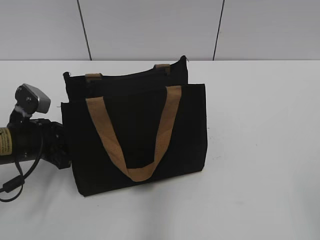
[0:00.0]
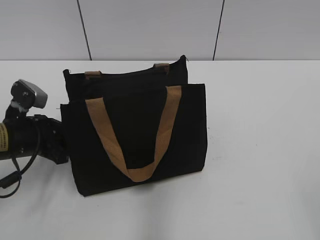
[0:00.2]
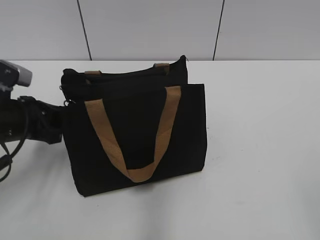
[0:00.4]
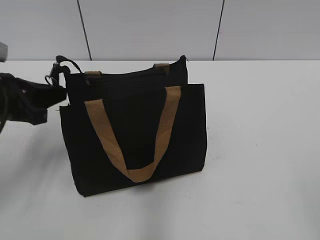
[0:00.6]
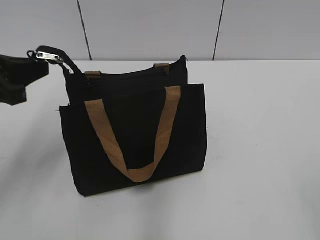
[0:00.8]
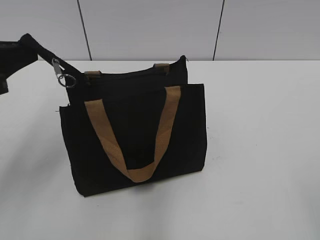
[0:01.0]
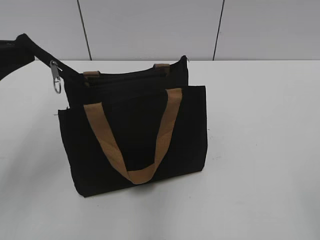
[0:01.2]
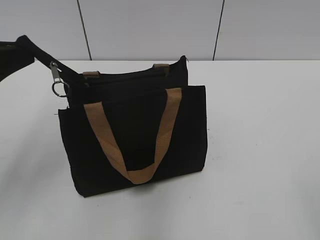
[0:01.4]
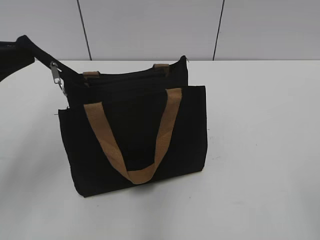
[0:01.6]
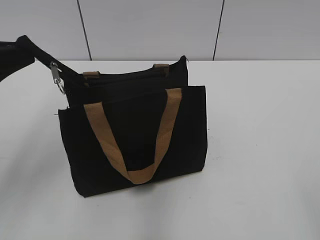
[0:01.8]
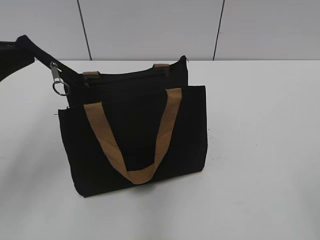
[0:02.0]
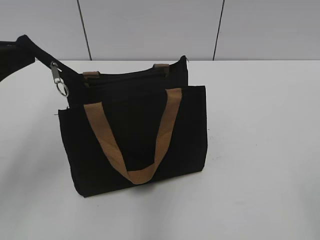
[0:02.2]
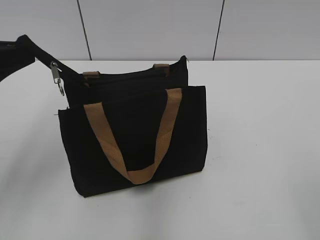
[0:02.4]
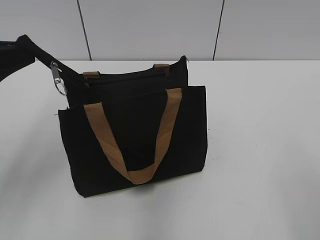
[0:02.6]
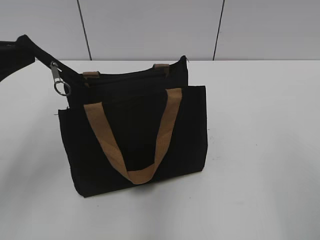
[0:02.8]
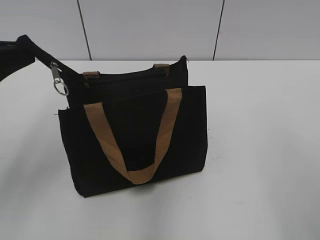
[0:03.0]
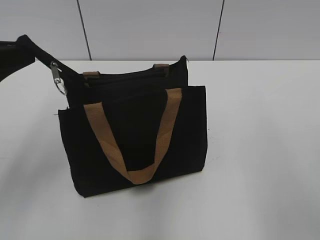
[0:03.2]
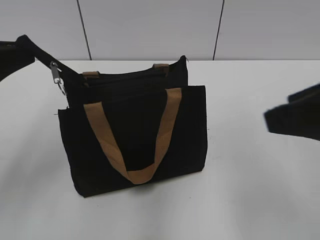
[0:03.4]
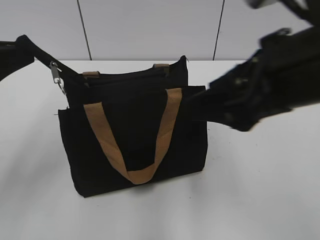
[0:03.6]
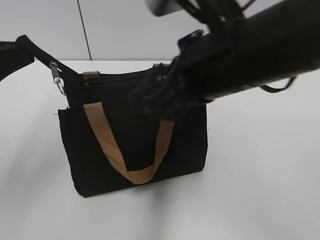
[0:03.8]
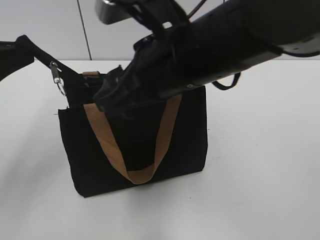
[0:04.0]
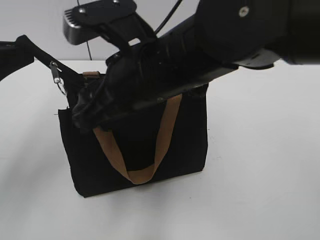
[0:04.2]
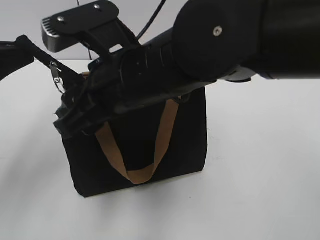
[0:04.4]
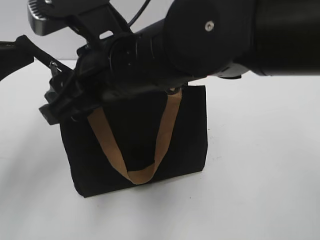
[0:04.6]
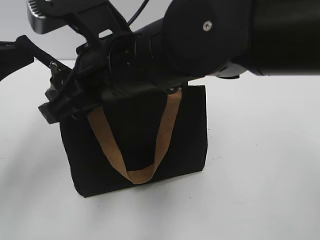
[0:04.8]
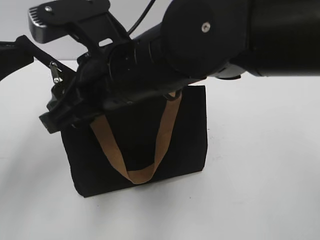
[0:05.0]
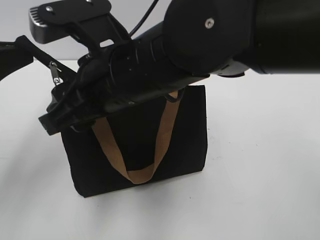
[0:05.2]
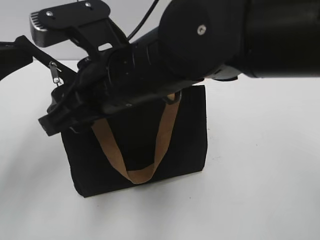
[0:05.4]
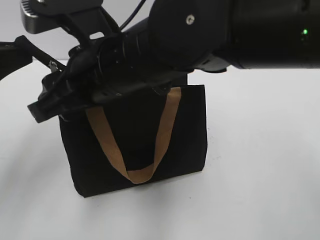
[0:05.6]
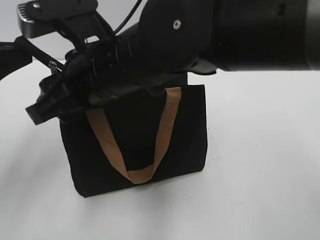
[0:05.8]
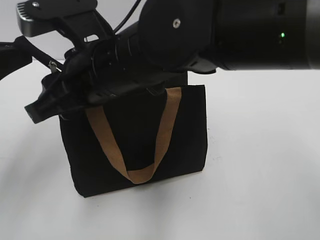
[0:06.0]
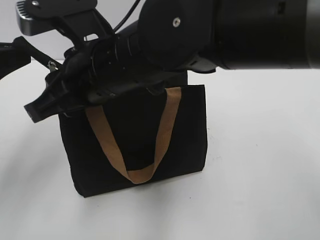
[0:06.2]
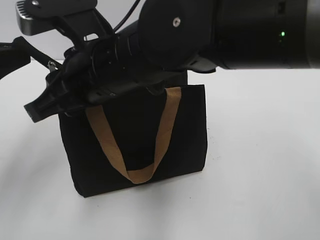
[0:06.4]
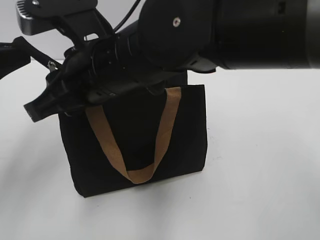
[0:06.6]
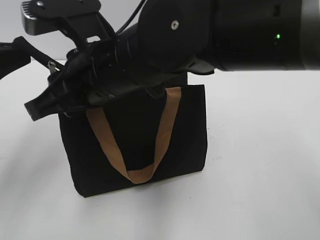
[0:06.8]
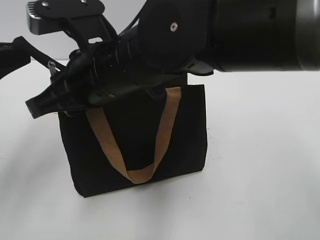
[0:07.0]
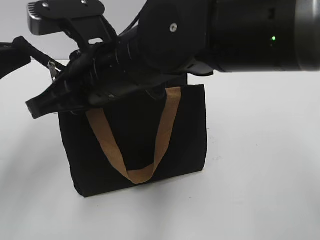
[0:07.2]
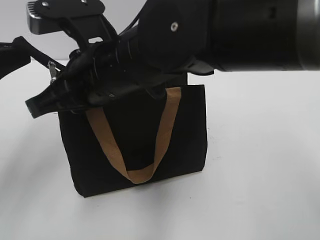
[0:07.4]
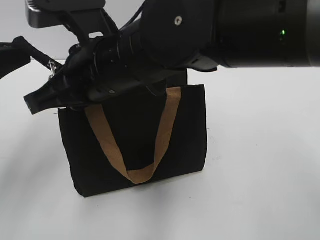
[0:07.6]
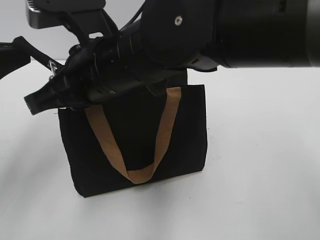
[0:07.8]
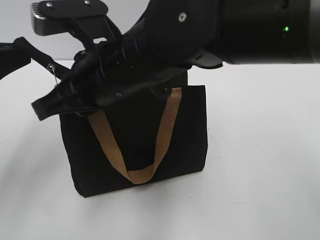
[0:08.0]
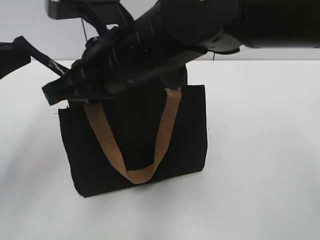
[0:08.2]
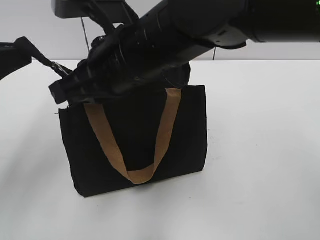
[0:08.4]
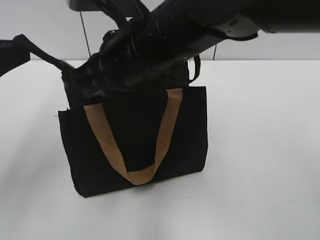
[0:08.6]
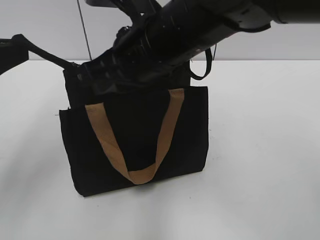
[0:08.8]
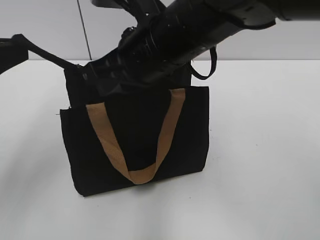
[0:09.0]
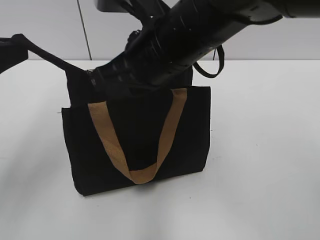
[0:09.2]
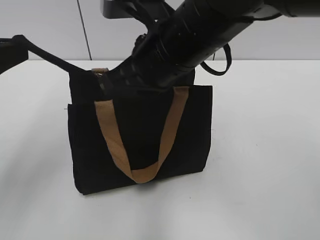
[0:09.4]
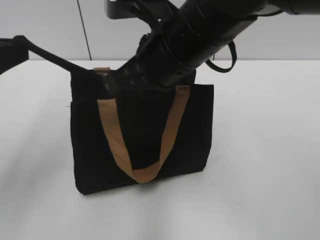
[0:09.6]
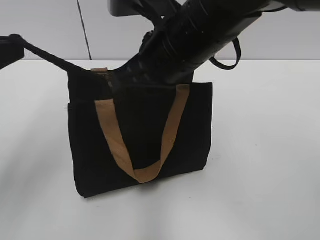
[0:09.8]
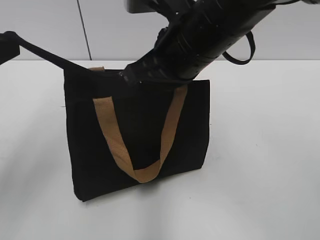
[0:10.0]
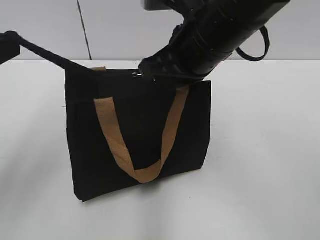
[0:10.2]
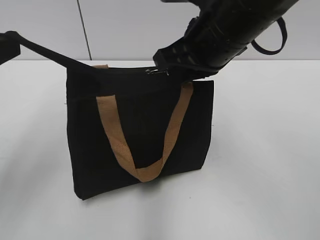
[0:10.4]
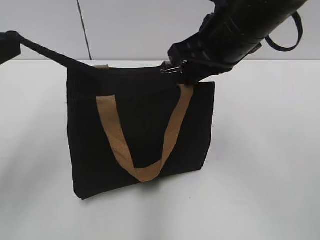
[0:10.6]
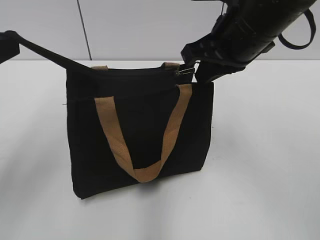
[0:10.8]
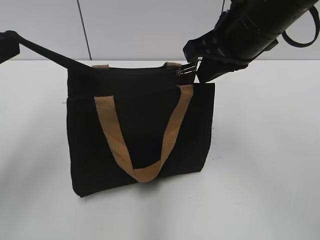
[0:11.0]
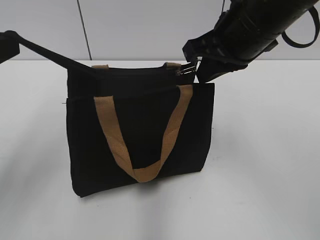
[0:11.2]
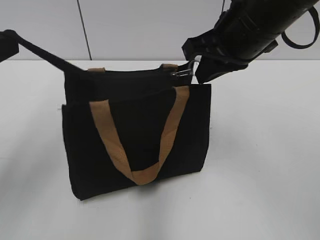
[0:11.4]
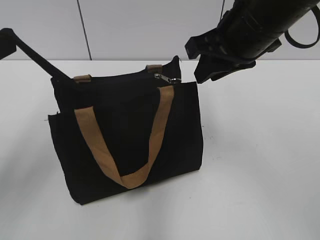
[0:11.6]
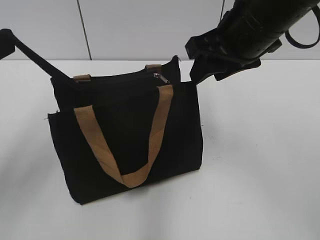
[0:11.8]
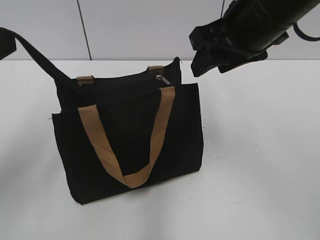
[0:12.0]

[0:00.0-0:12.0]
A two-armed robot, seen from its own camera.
Step, 0:00.0 to 0:11.2: Zip up the bag with your right hand.
0:00.0 to 0:01.6: The left gripper travels upward and backward by some 20 cm.
0:03.0 to 0:04.4: The right gripper moves to the left and forward, about 30 cm.
0:04.4 to 0:06.0: The grippers make only small movements.
0:06.0 to 0:07.6: The right gripper closes up.
0:07.6 to 0:09.0: The right gripper is displaced to the right by roughly 5 cm.
0:09.0 to 0:10.4: The right gripper shifts about 5 cm to the right.
0:10.4 to 0:12.0: The left gripper opens its fingers; the right gripper opens its fingers.

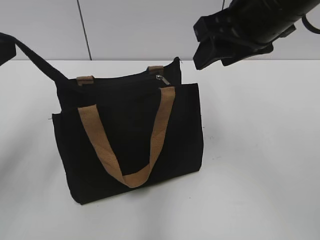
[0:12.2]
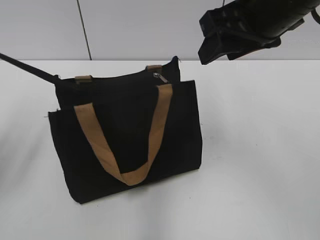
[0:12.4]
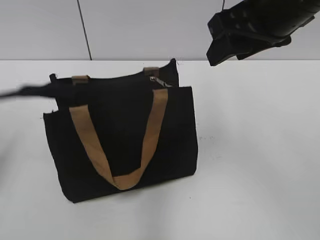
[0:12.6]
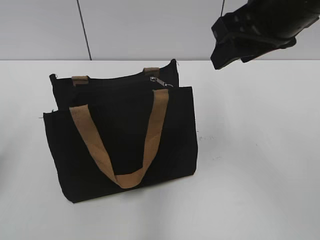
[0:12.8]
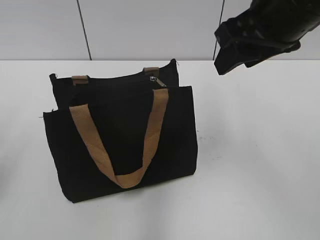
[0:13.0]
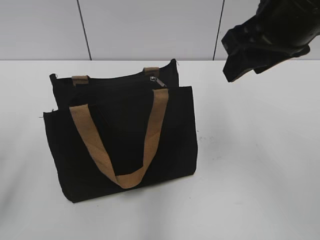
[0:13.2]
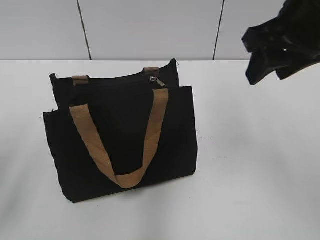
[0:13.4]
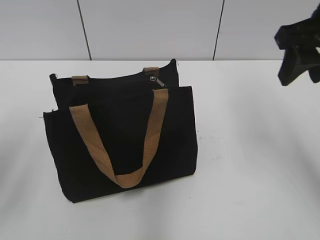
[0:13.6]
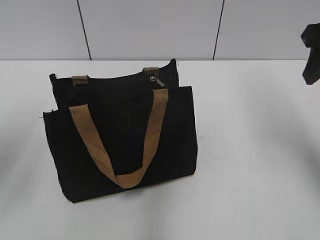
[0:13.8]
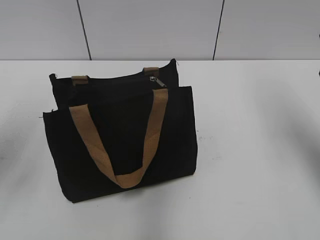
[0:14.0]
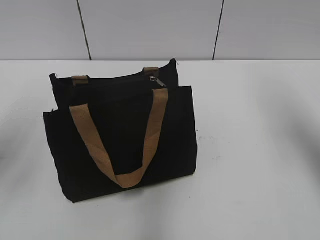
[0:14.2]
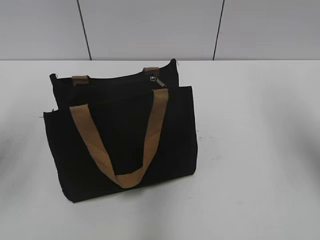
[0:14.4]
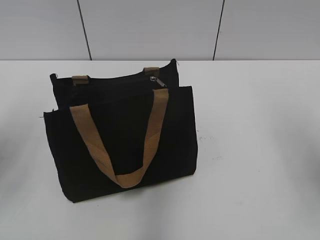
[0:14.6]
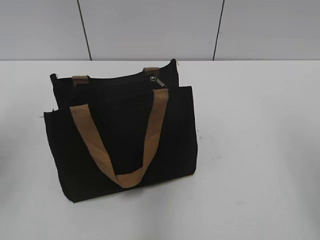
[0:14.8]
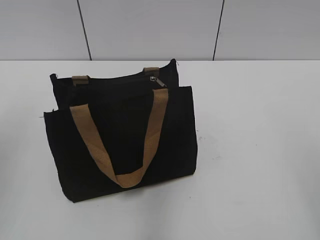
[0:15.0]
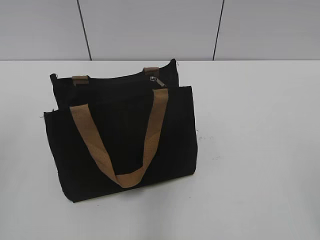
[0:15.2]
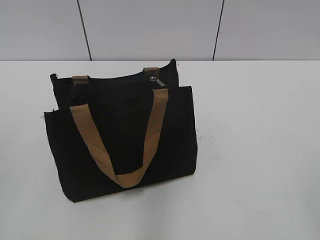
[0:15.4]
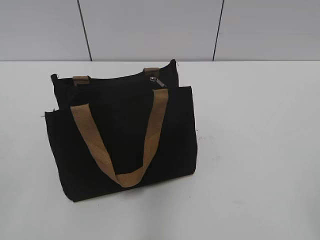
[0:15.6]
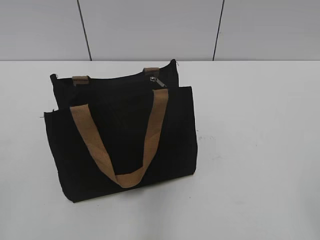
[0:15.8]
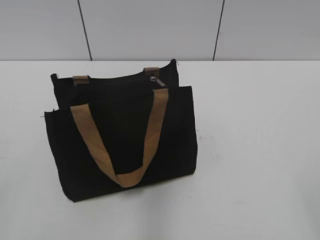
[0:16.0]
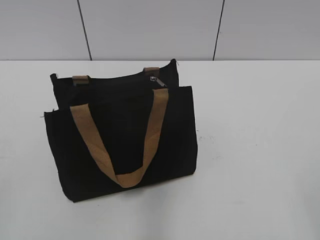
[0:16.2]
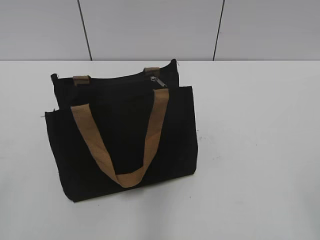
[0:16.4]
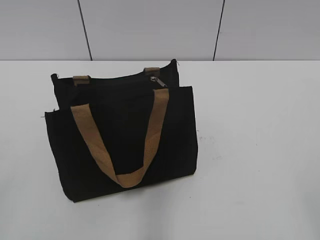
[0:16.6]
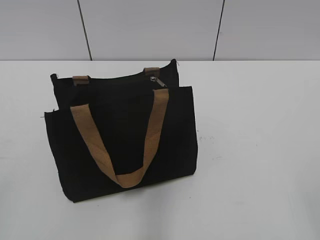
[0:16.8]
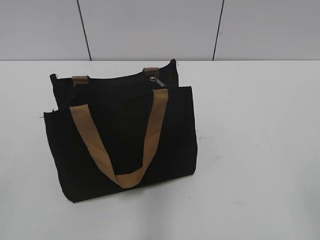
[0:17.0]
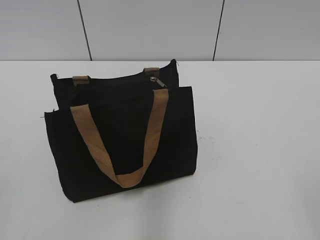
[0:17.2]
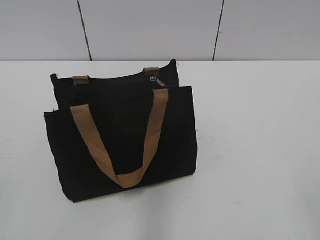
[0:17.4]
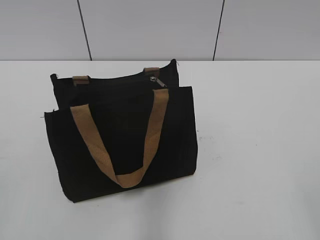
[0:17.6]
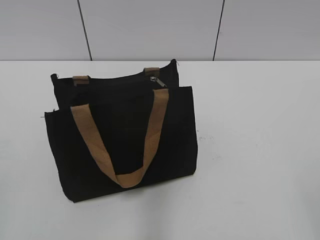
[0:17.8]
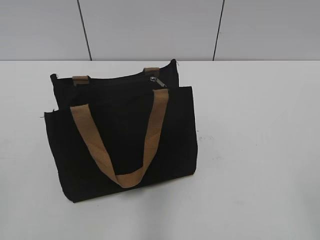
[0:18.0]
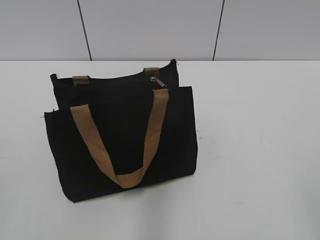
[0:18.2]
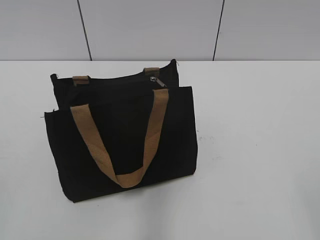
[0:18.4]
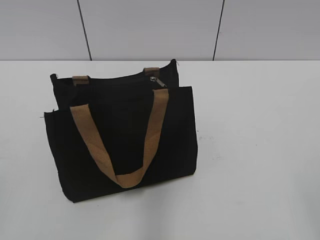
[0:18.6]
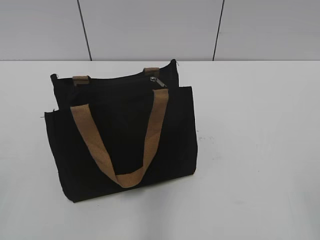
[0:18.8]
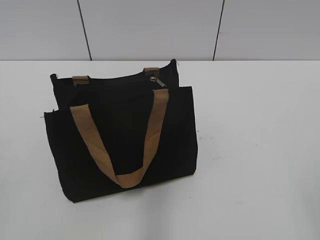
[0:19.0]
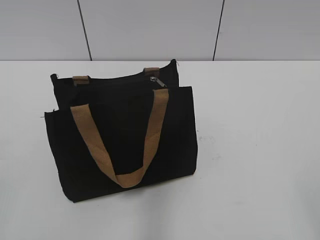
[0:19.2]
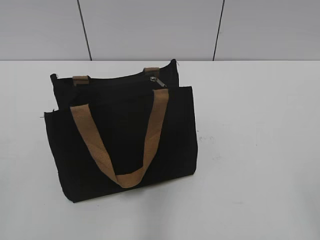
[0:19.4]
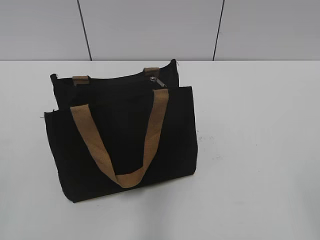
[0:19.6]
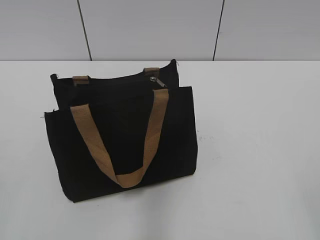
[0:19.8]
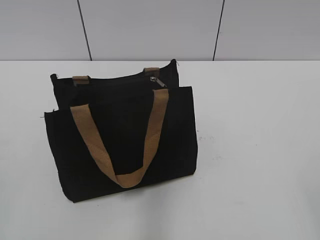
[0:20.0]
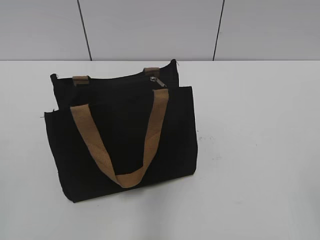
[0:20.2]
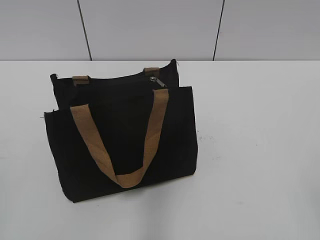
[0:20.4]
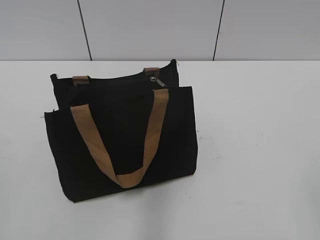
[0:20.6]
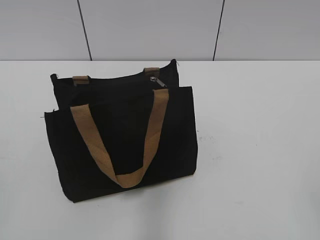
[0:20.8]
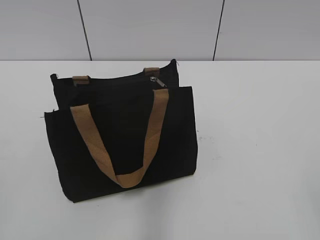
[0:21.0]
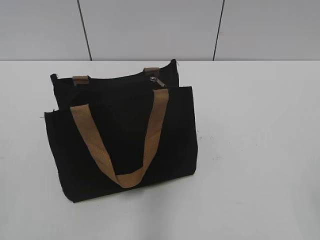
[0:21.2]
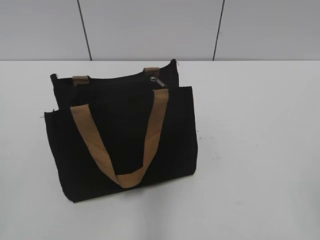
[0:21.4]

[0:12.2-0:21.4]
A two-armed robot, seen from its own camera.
0:12.2 to 0:13.8: The right gripper goes approximately 10 cm to the right.
0:13.8 to 0:15.2: The right gripper shifts roughly 25 cm backward.
0:16.8 to 0:19.8: Both grippers stay about where they are.

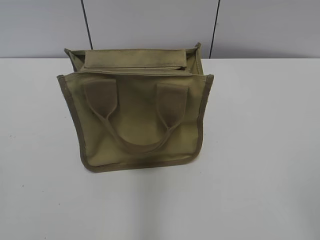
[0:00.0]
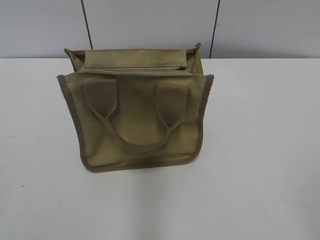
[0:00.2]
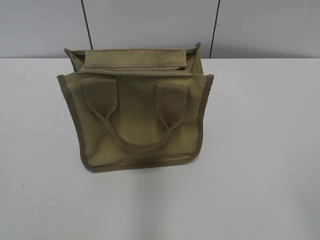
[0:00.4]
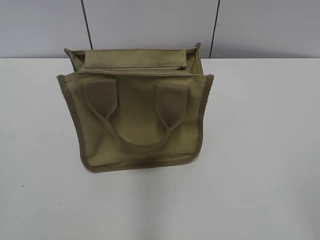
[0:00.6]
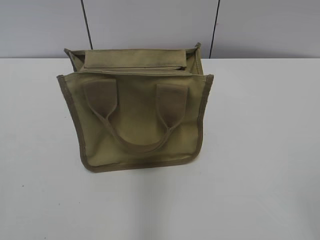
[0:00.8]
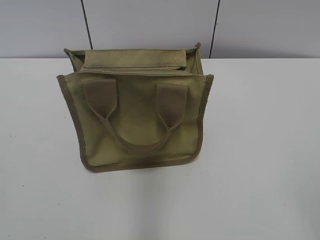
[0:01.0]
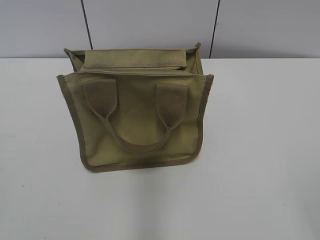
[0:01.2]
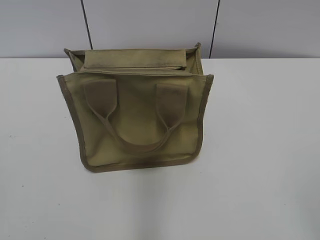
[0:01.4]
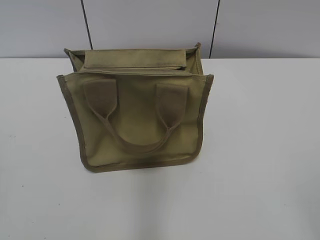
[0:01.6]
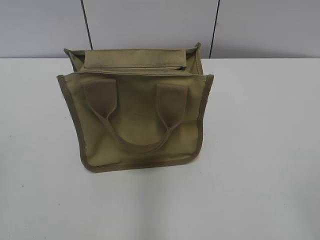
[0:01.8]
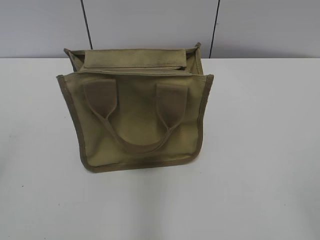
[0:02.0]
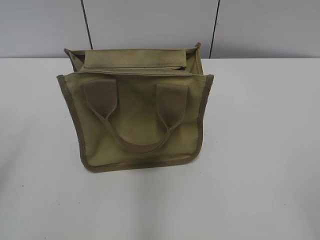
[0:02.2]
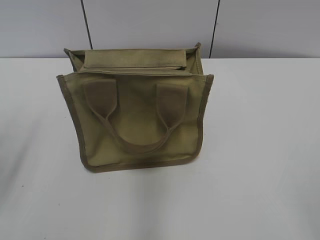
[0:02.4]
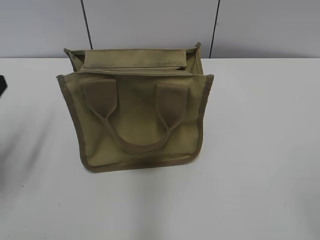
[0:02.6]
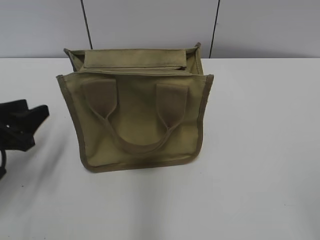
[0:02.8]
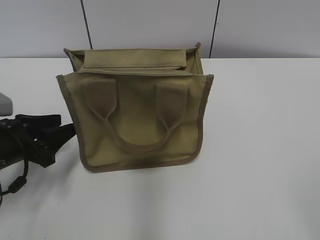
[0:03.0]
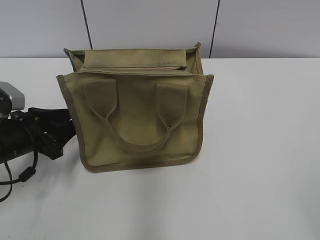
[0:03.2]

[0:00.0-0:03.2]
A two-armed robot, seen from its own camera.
0:01.6 to 0:03.2: The left gripper moves forward and downward, some 30 cm.